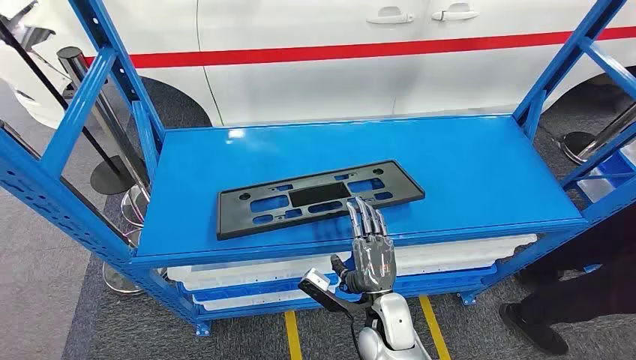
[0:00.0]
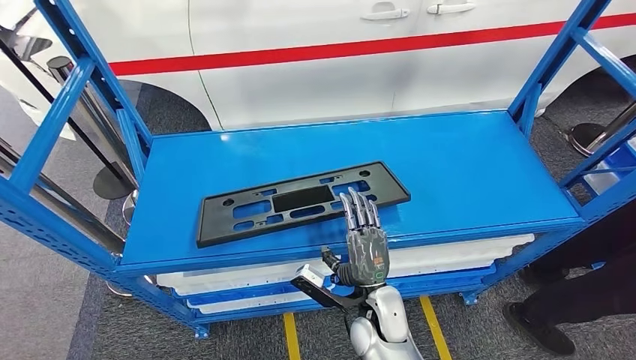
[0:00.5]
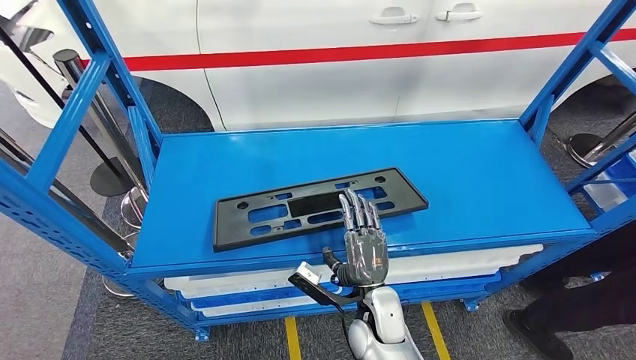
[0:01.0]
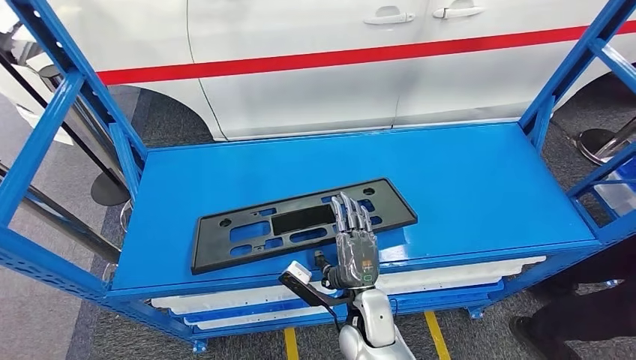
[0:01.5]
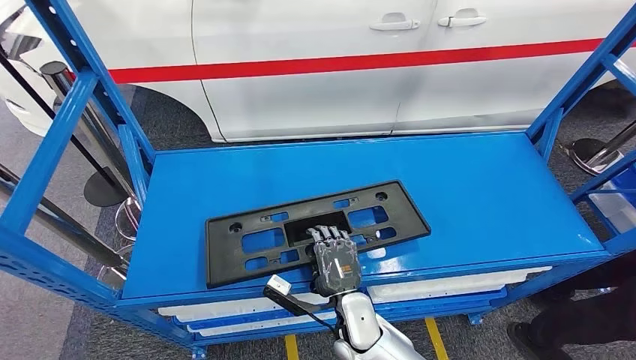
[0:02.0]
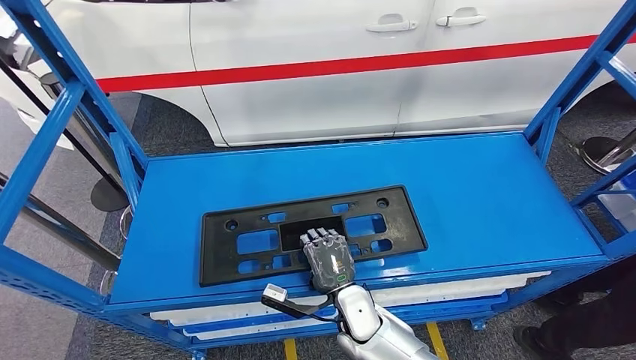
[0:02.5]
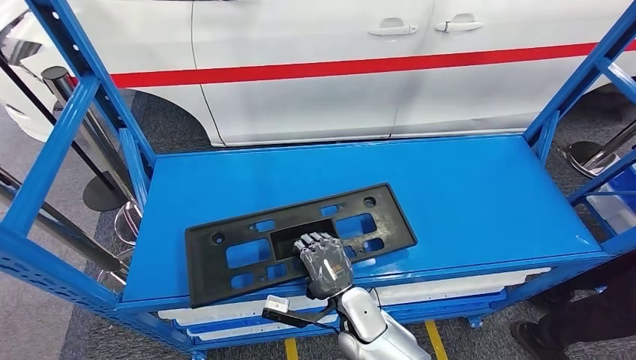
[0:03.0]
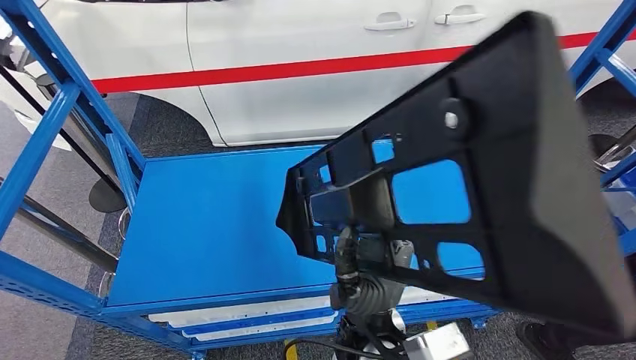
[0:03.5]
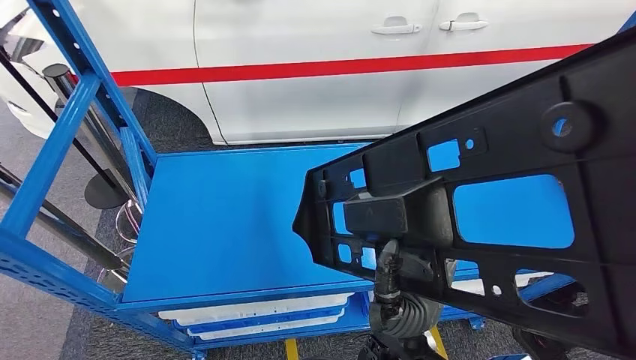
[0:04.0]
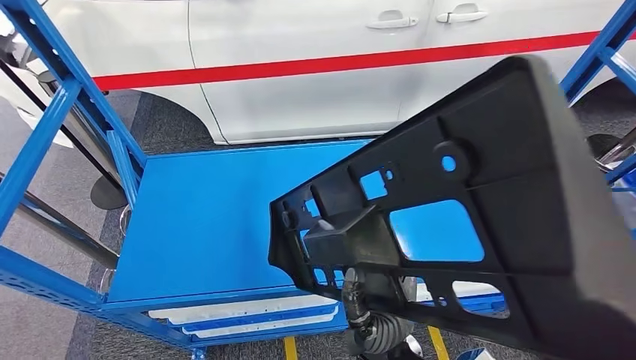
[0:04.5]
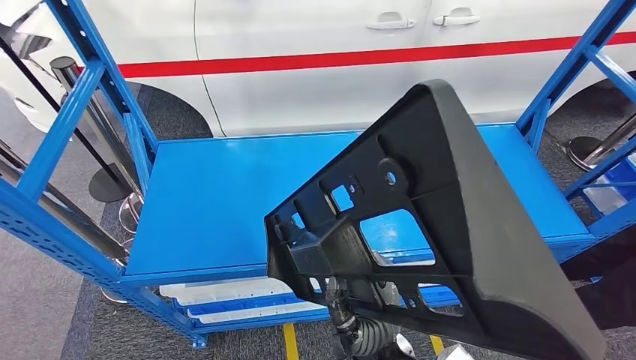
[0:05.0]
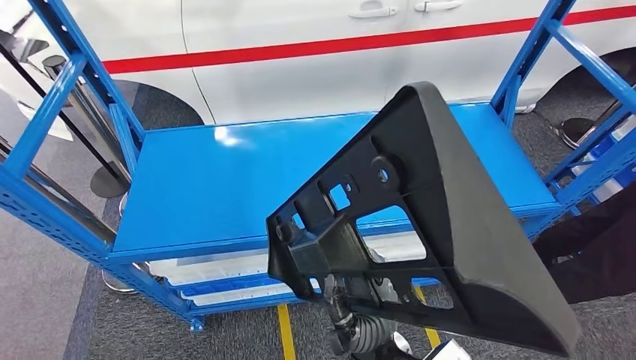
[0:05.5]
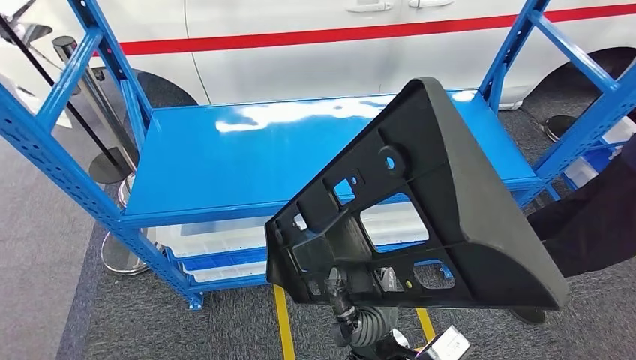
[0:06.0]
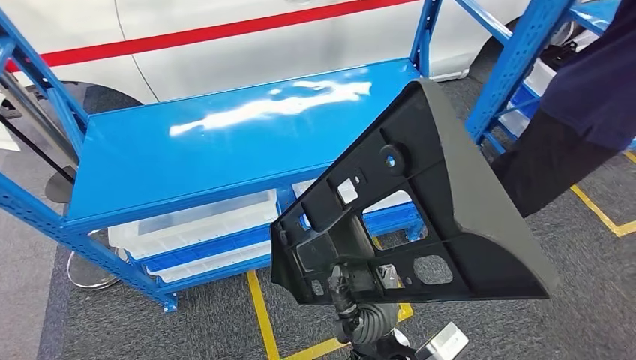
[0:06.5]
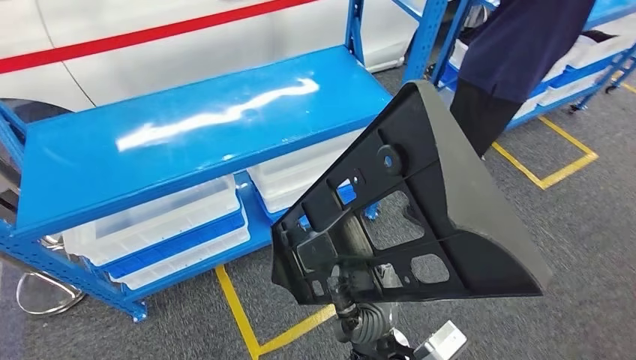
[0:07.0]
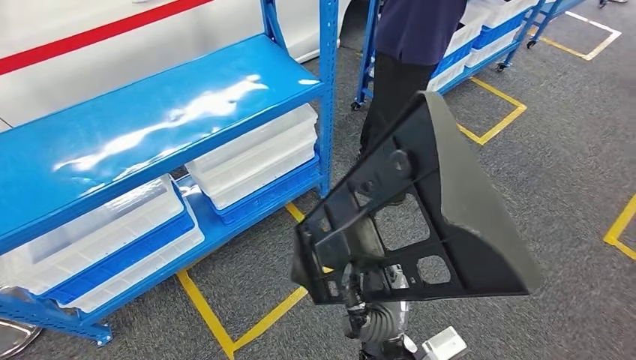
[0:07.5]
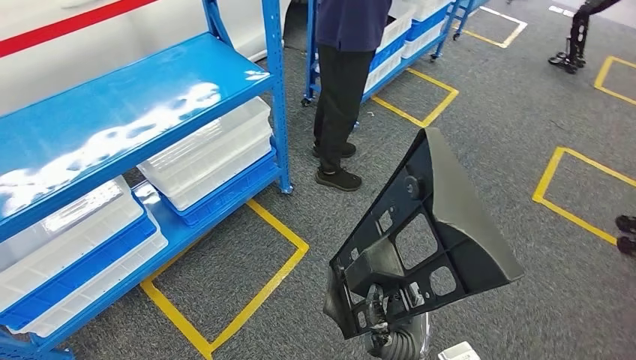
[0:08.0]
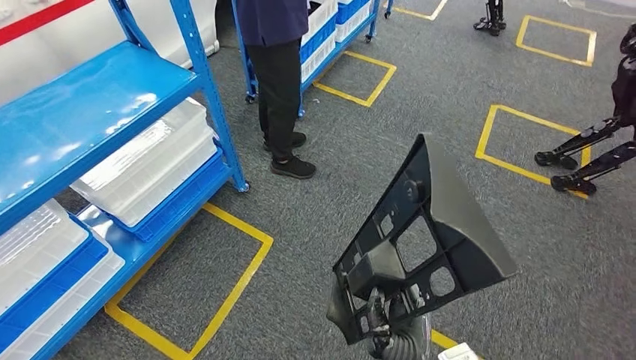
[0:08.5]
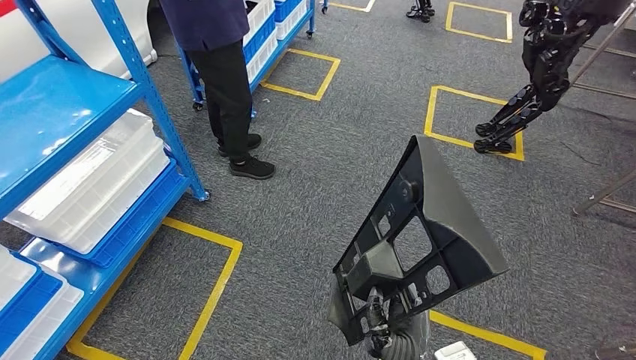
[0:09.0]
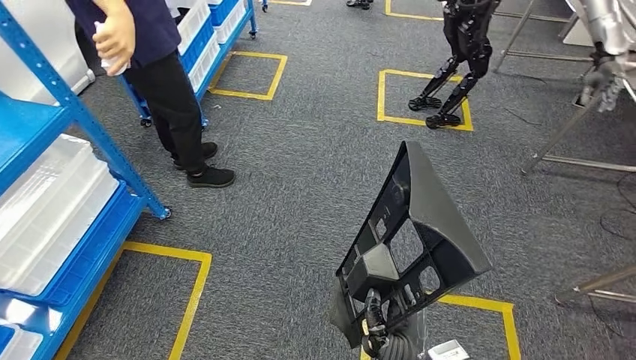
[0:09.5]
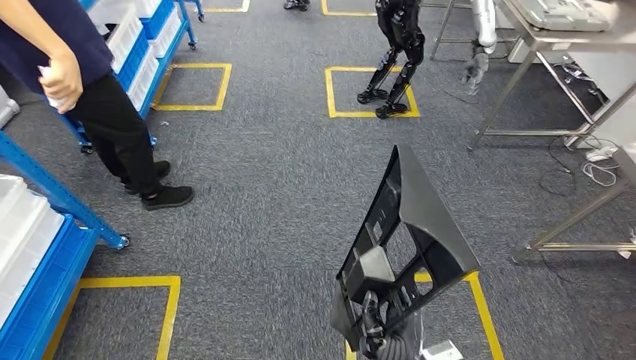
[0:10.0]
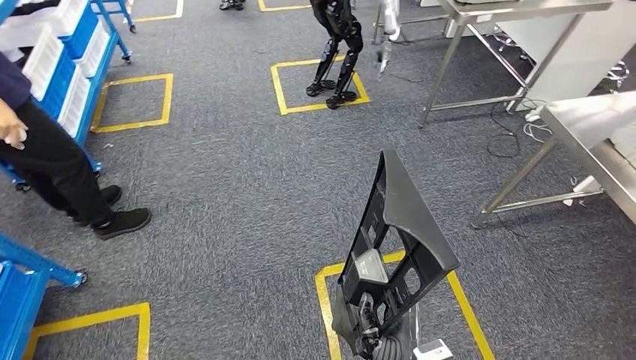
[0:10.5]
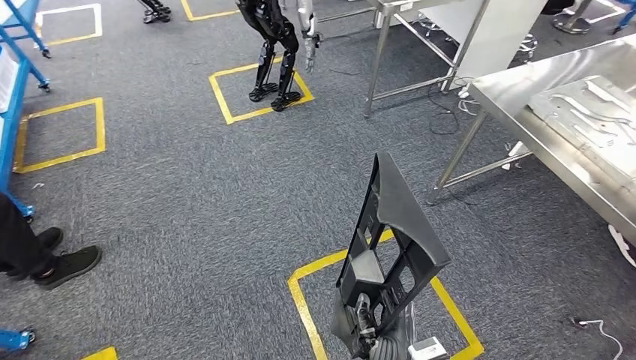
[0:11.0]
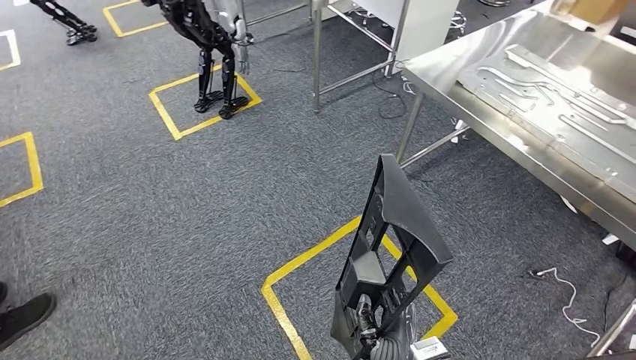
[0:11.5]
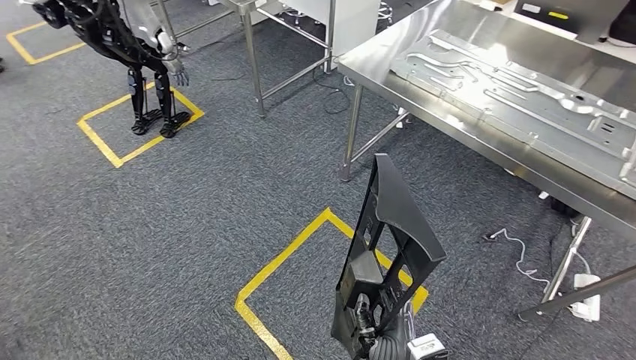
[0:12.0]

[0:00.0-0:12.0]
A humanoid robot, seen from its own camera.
Step, 0:00.0 to 0:07.5: Pick up the large material from the shelf.

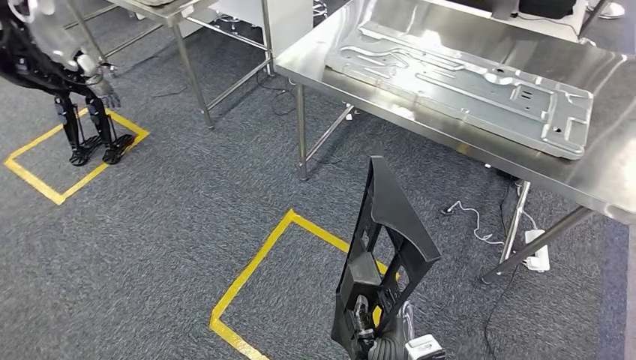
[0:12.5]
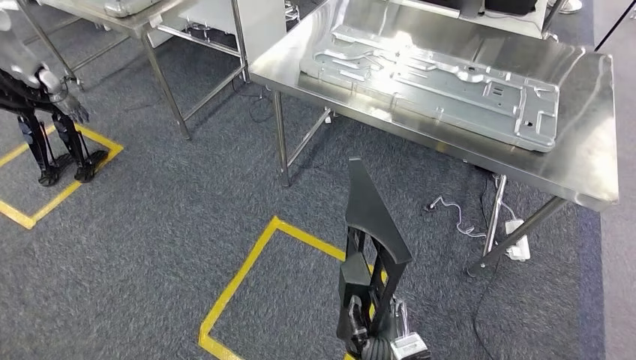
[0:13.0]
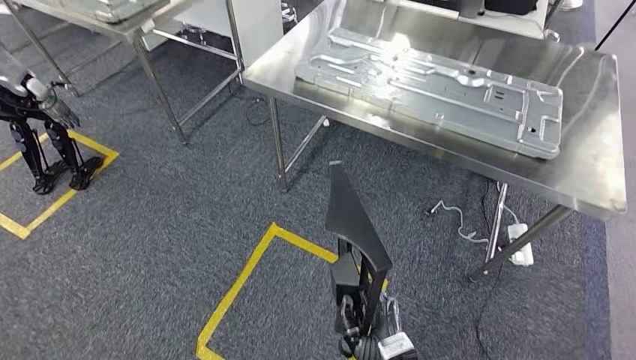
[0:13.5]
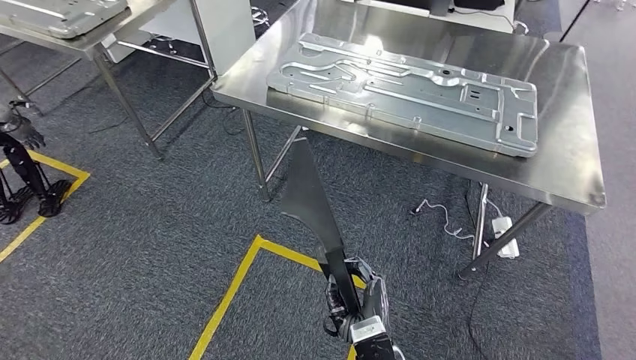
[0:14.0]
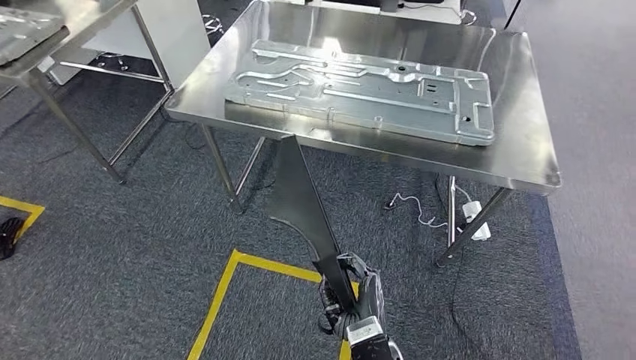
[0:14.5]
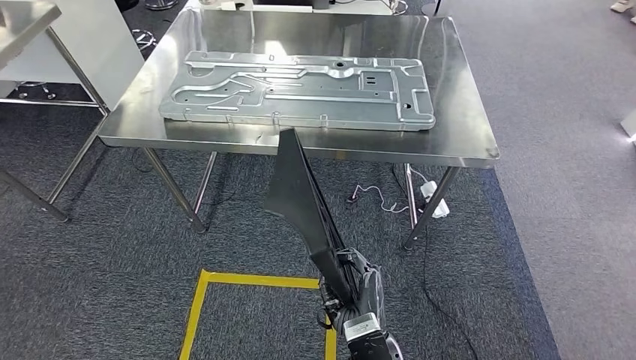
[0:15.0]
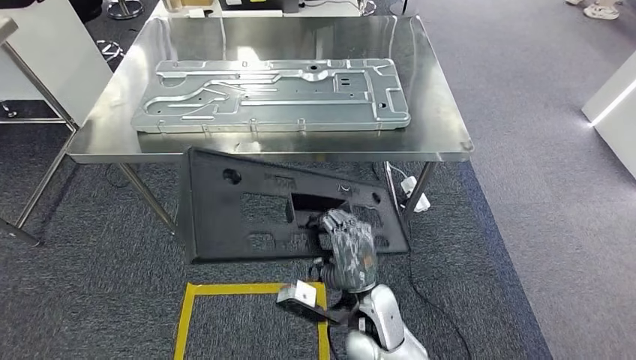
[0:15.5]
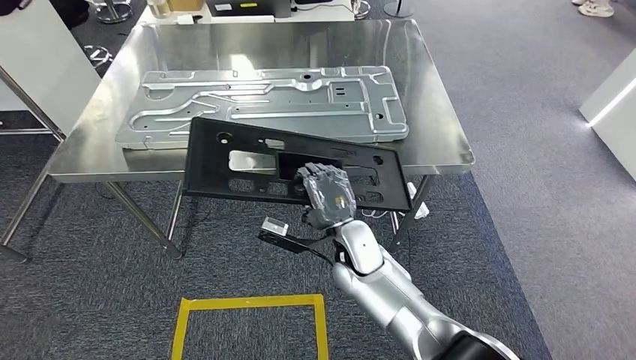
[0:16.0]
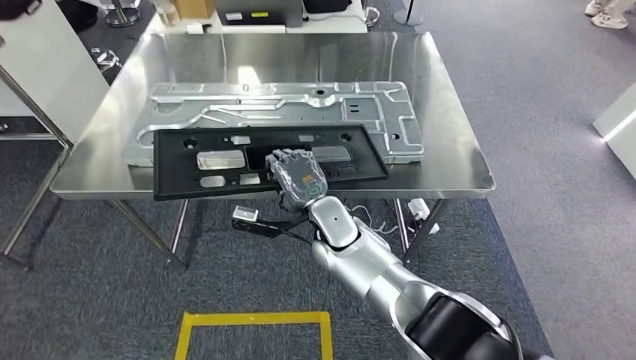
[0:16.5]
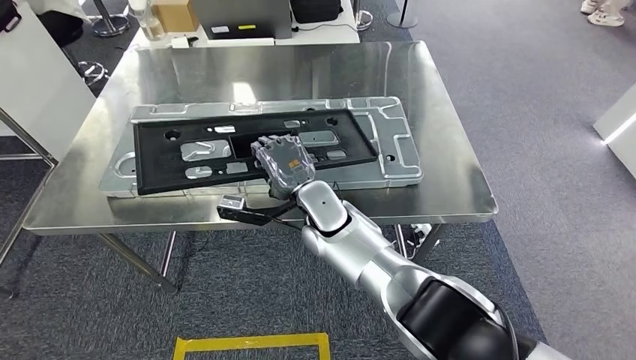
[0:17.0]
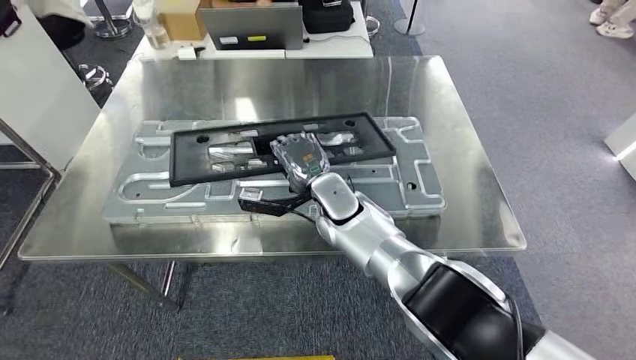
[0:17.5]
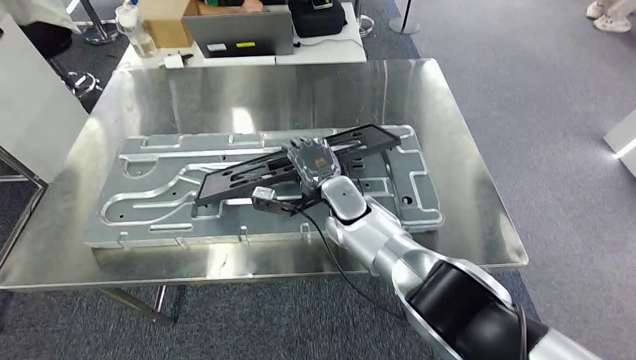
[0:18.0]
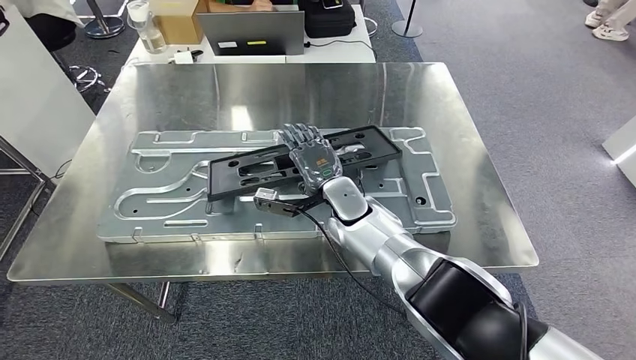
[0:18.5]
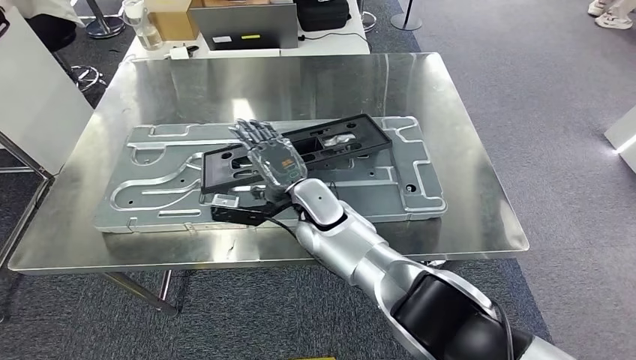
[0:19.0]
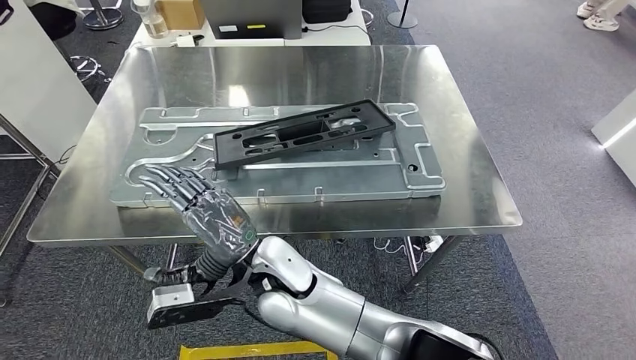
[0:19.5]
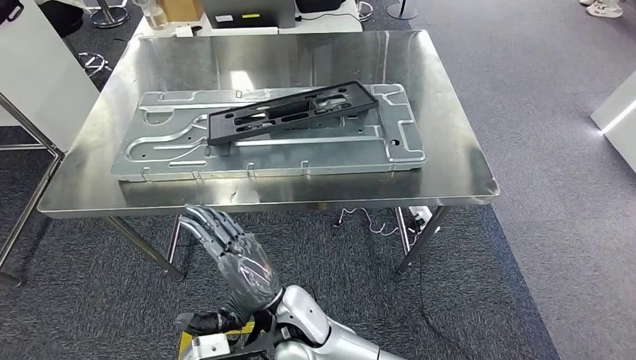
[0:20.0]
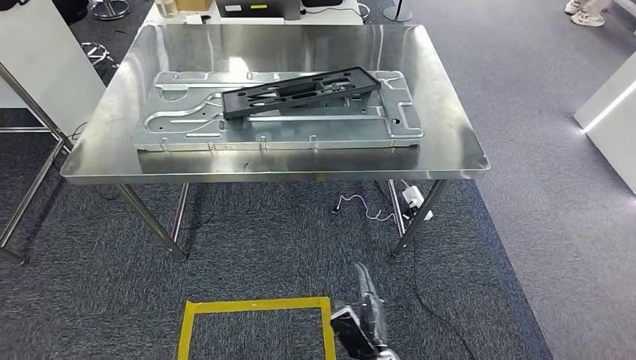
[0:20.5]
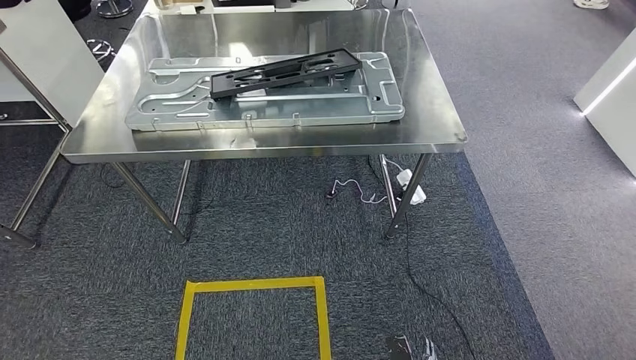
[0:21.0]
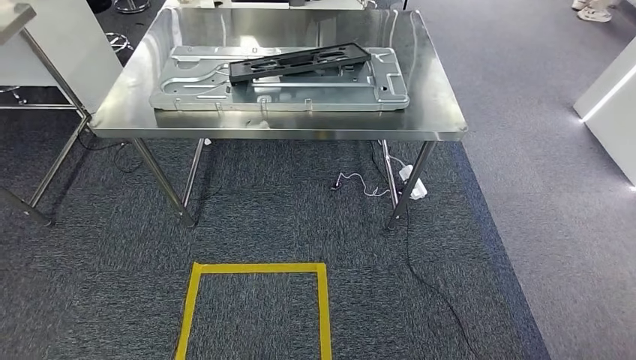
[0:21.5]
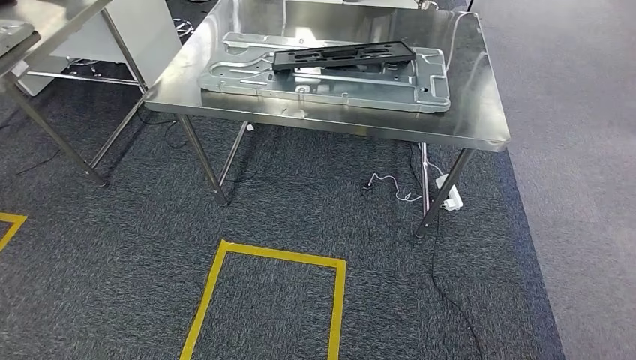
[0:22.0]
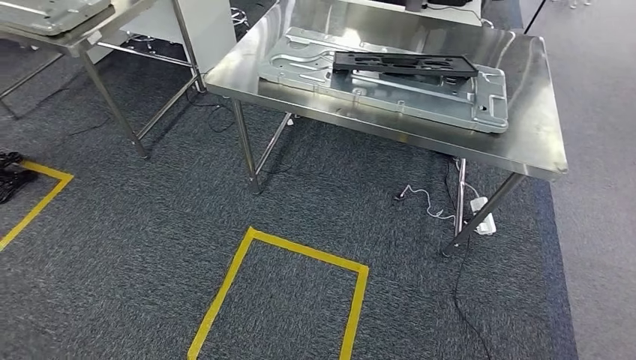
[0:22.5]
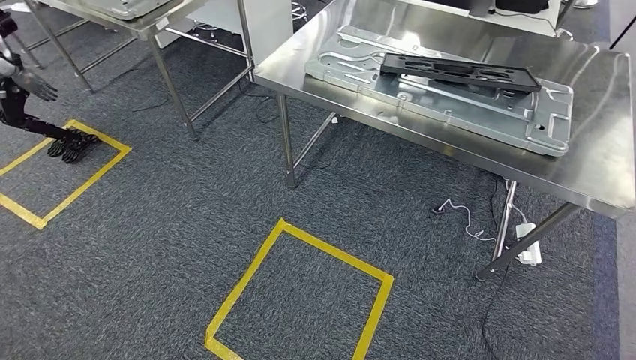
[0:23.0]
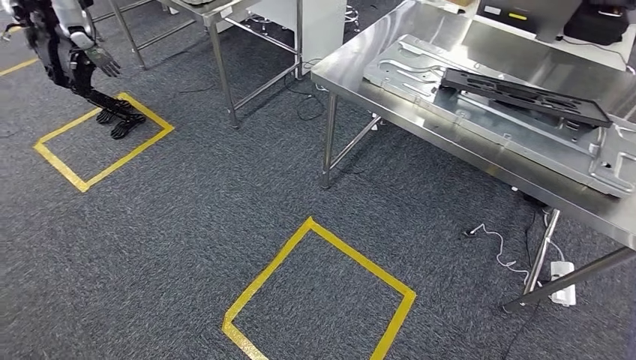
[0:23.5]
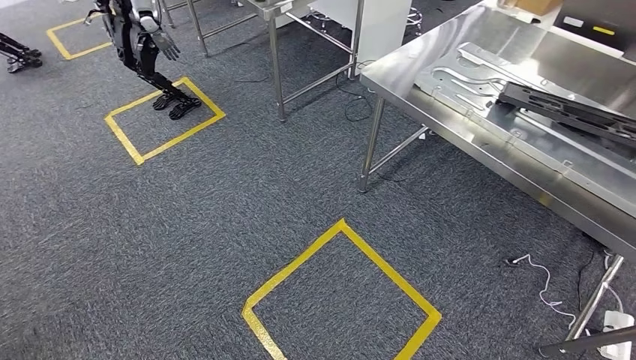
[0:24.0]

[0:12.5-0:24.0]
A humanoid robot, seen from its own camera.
Step, 0:12.5 to 0:15.5: Move the large material to the workbench.
Step, 0:16.0 to 0:20.5: Insert the large material into the corresponding slot on the workbench.
